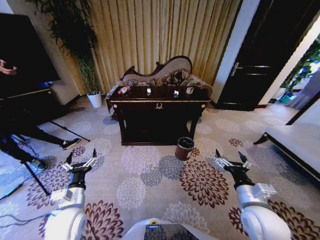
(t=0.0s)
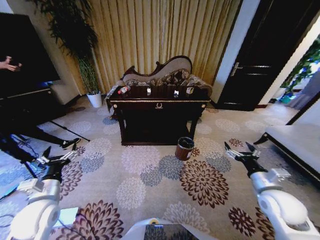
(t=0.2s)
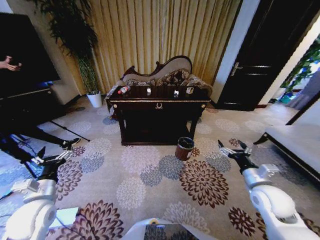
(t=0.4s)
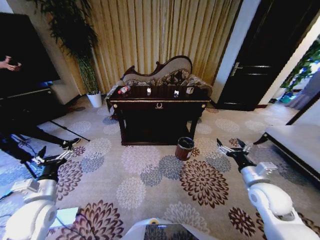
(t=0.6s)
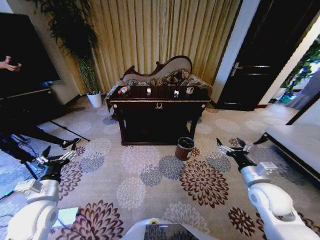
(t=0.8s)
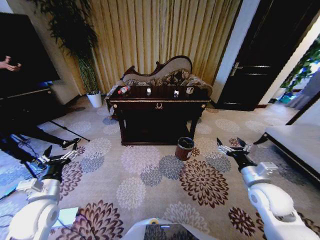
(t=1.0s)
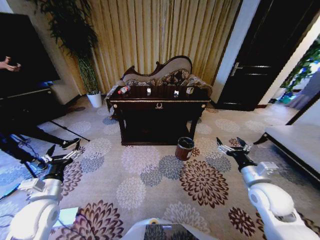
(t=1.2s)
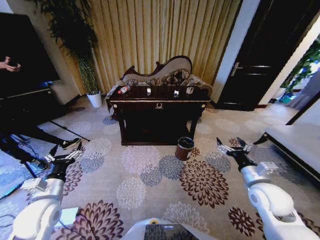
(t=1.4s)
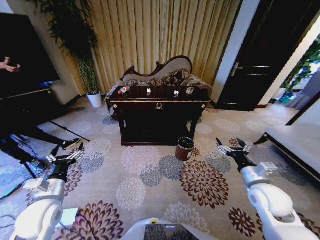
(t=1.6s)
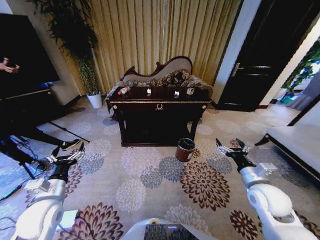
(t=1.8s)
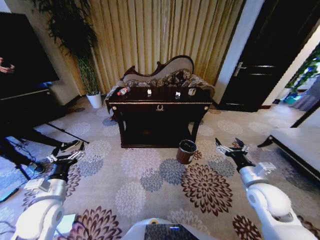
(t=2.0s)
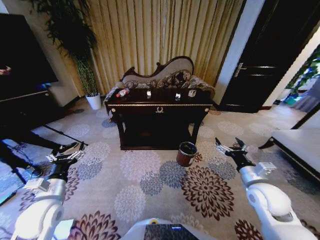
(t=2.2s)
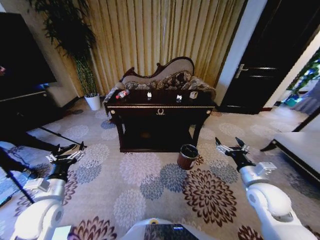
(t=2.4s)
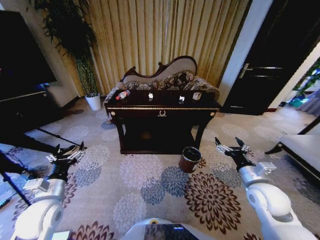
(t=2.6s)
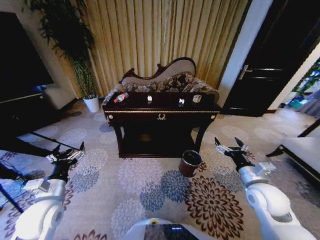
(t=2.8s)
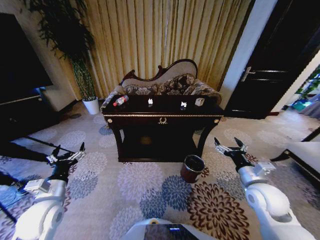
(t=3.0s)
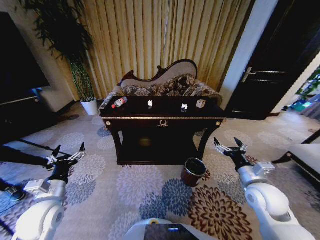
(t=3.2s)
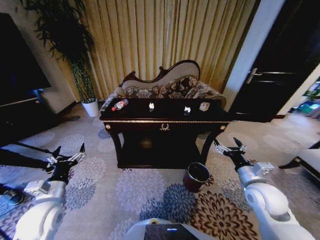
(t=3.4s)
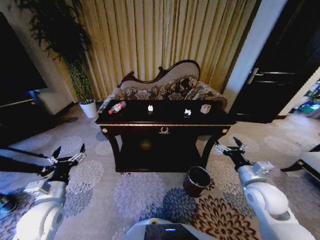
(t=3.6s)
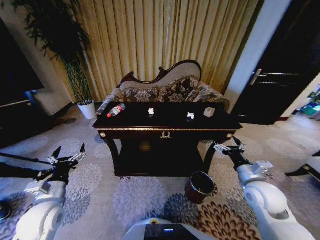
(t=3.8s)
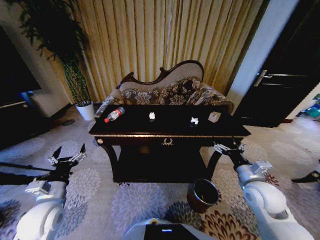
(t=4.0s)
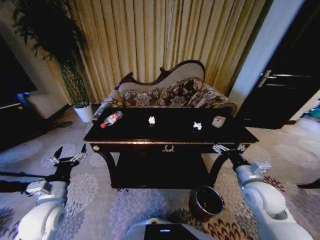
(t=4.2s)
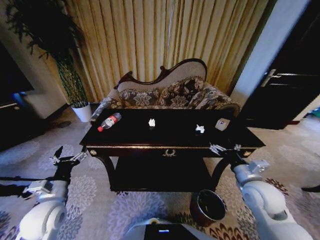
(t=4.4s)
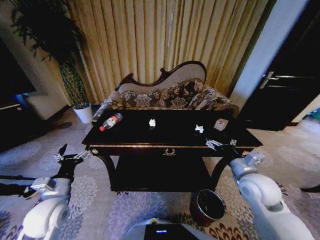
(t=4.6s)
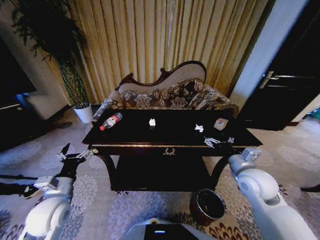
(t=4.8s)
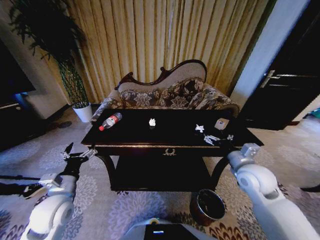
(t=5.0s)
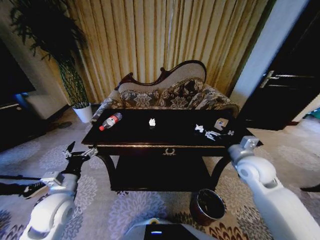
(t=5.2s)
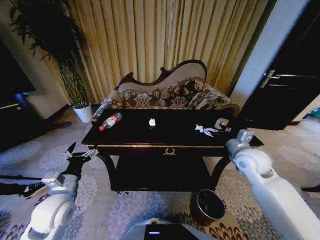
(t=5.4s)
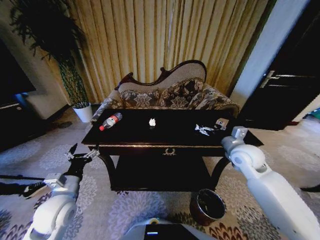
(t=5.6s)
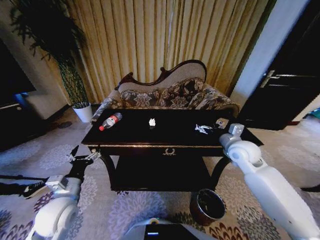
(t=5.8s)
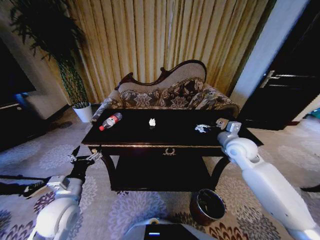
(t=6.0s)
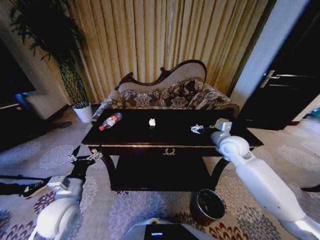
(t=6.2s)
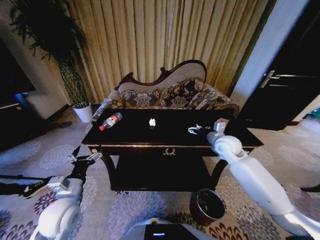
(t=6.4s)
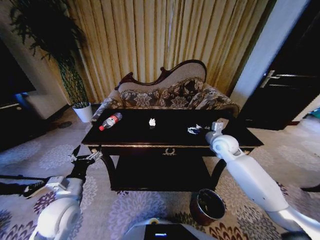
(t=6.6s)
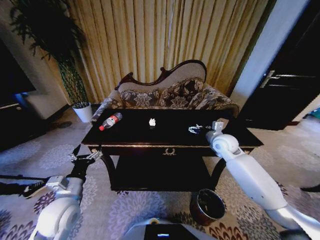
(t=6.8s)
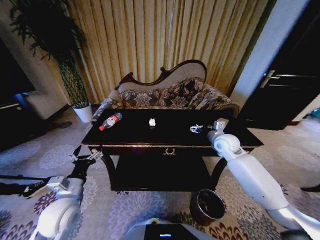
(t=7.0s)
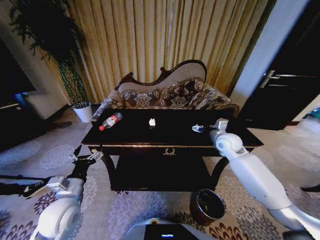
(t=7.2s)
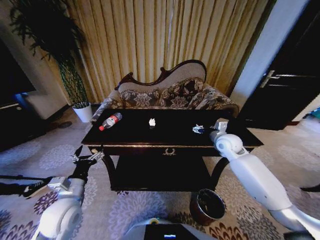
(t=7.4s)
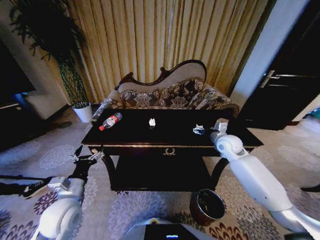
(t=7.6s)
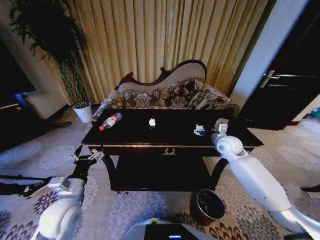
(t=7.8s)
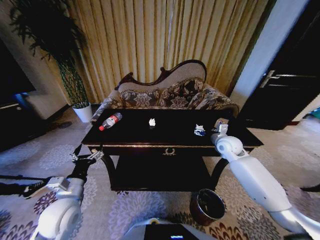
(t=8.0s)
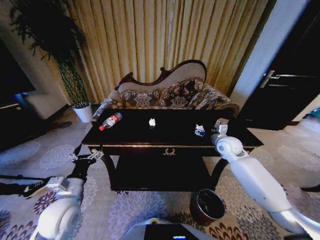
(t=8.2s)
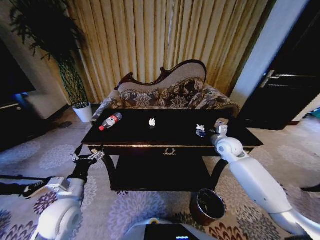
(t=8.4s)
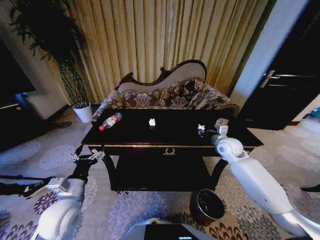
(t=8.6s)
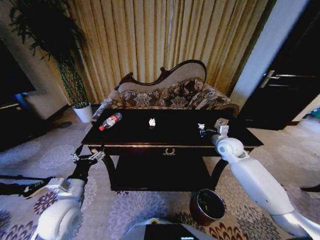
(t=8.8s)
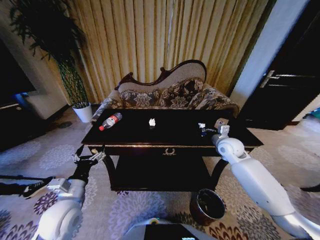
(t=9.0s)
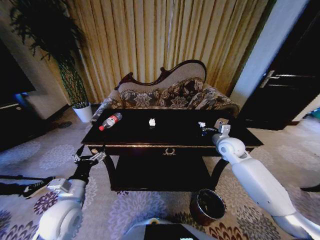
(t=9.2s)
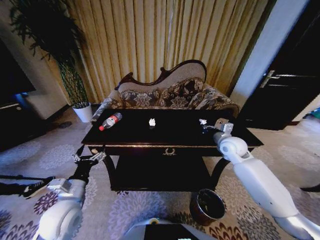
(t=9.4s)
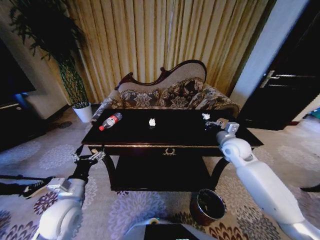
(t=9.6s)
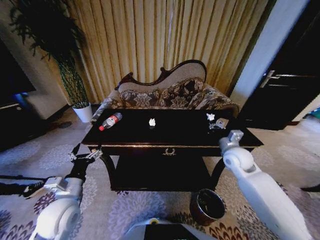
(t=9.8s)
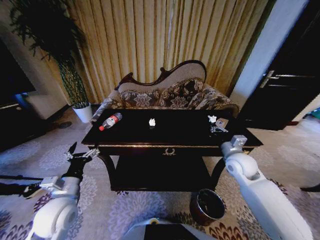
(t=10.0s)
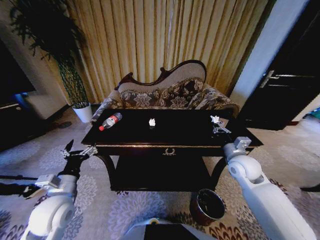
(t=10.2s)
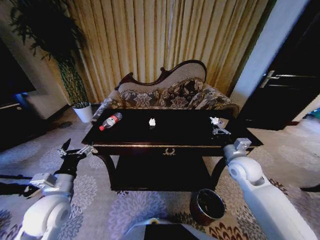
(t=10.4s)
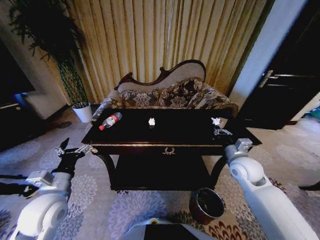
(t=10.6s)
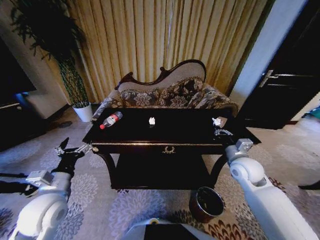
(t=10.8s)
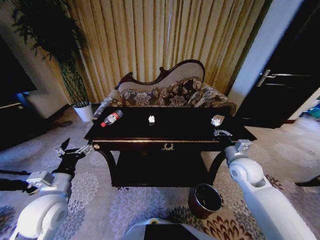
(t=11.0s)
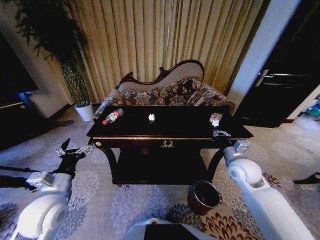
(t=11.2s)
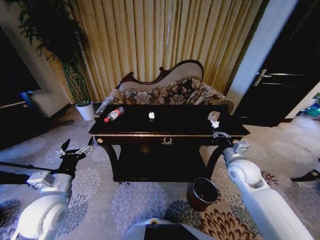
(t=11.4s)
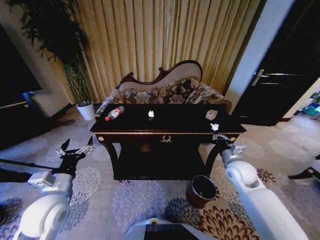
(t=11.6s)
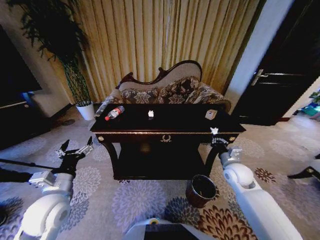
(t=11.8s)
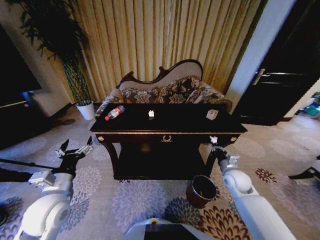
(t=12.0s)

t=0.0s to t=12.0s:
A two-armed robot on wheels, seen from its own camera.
Task of the whole recording: Move to the front of the table and place the trash on the table into the trash bin.
t=4.4s to t=6.0s: The right gripper goes approximately 15 cm forward.
t=6.0s to t=7.6s: The right gripper changes place by some 5 cm.
t=7.6s to t=9.0s: The right gripper closes up.
t=9.0s to t=10.4s: The right gripper moves backward, roughly 10 cm.
t=10.4s to t=12.0s: The right gripper is displaced downward by roughly 10 cm.

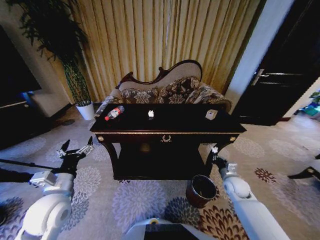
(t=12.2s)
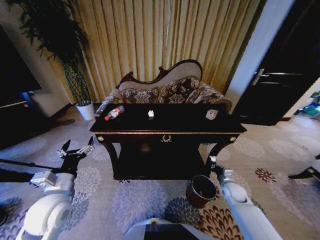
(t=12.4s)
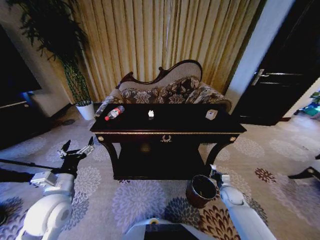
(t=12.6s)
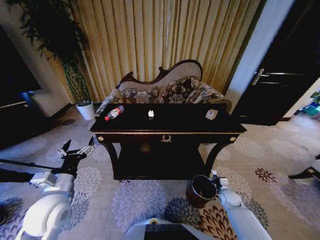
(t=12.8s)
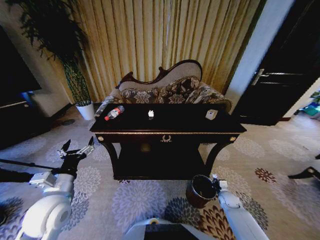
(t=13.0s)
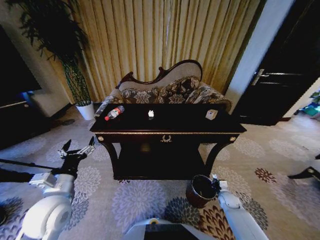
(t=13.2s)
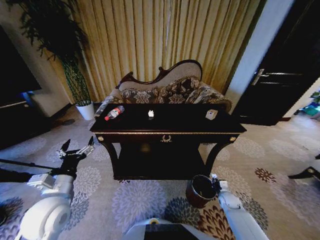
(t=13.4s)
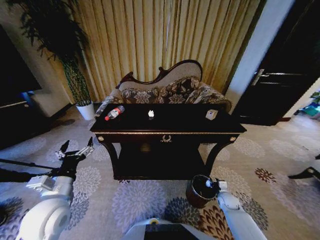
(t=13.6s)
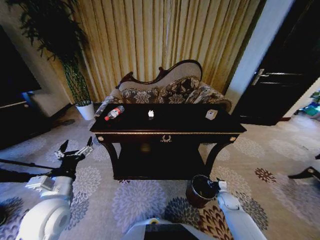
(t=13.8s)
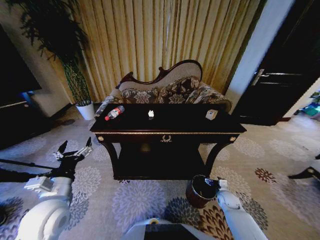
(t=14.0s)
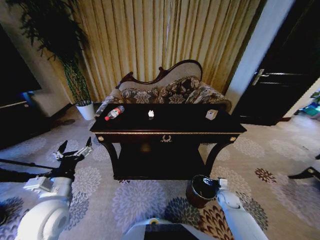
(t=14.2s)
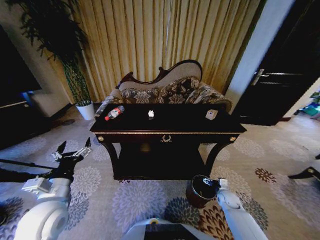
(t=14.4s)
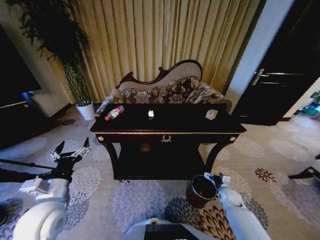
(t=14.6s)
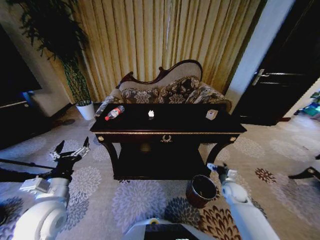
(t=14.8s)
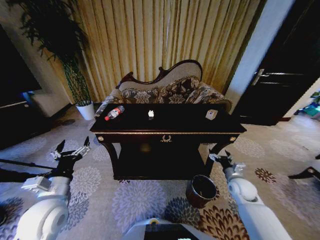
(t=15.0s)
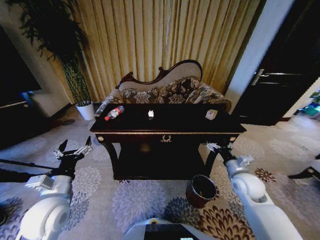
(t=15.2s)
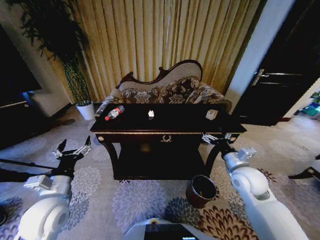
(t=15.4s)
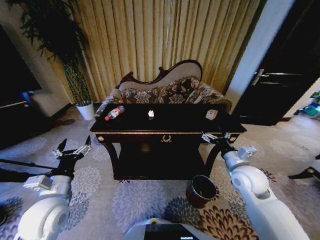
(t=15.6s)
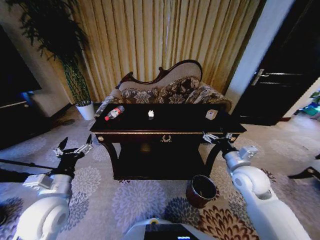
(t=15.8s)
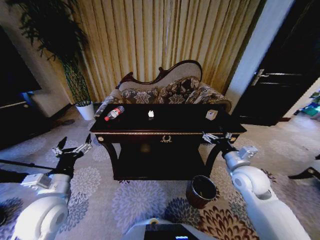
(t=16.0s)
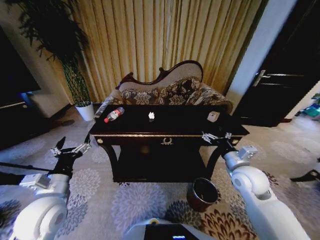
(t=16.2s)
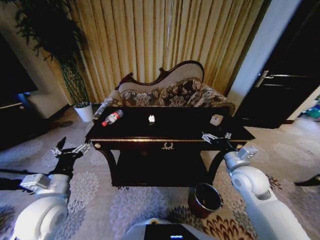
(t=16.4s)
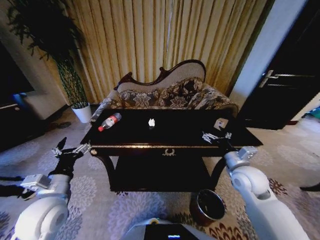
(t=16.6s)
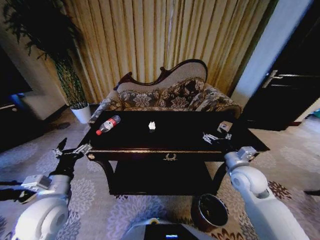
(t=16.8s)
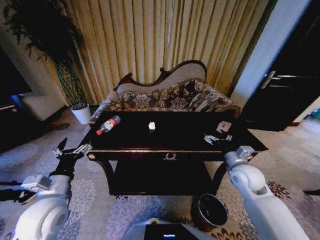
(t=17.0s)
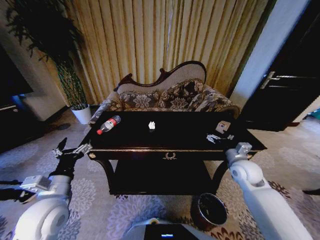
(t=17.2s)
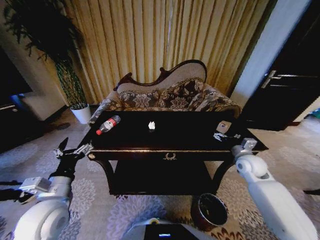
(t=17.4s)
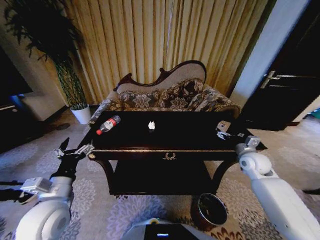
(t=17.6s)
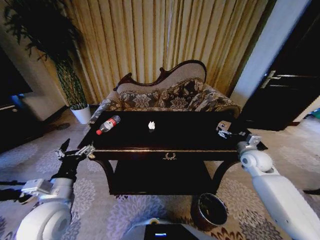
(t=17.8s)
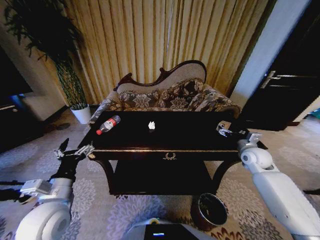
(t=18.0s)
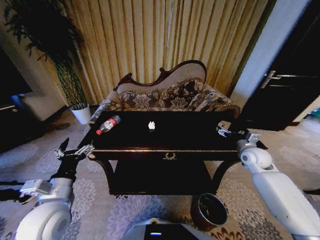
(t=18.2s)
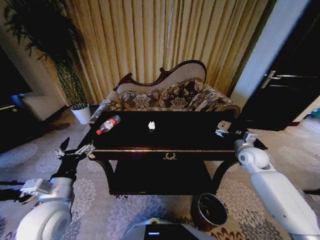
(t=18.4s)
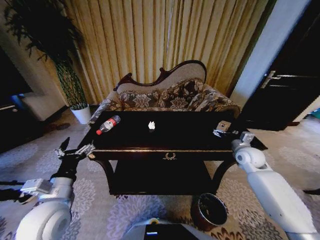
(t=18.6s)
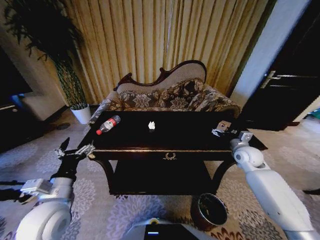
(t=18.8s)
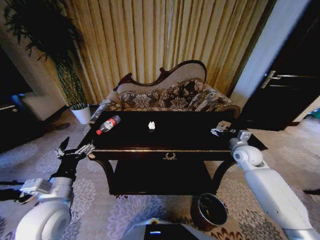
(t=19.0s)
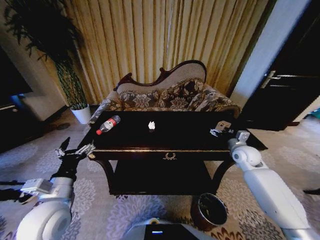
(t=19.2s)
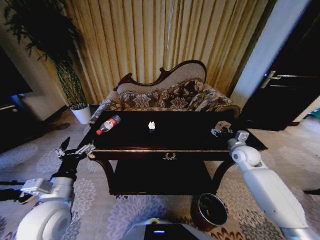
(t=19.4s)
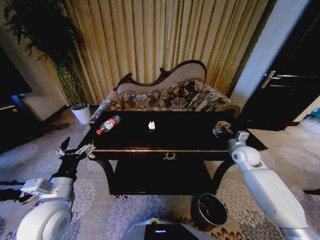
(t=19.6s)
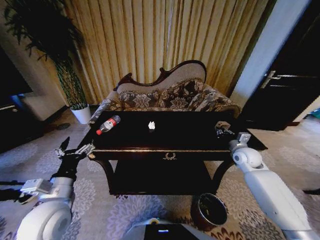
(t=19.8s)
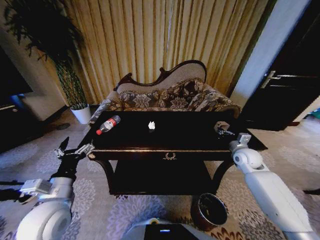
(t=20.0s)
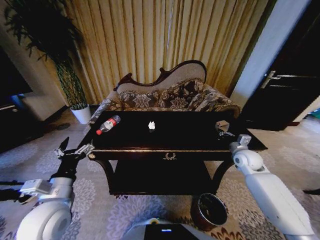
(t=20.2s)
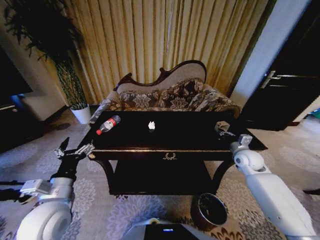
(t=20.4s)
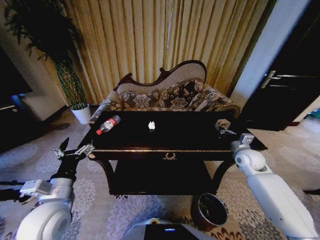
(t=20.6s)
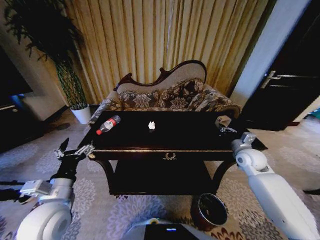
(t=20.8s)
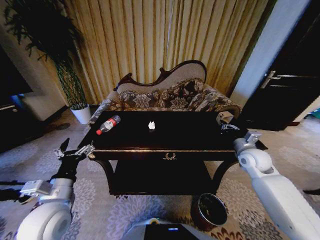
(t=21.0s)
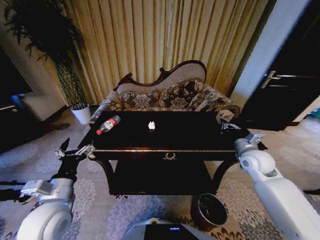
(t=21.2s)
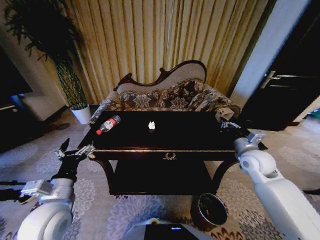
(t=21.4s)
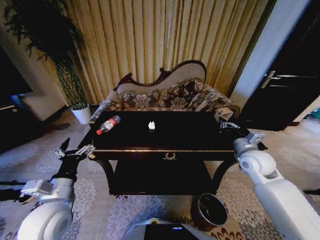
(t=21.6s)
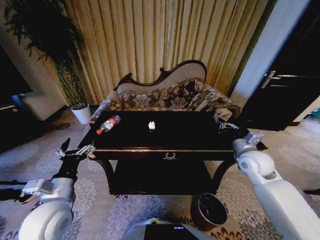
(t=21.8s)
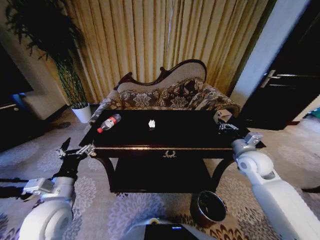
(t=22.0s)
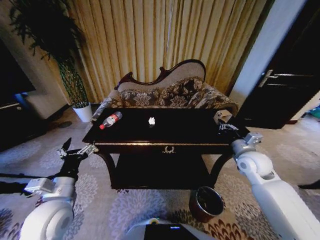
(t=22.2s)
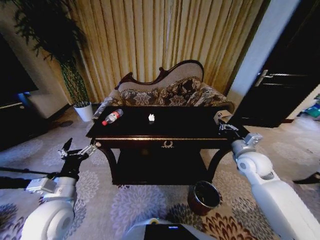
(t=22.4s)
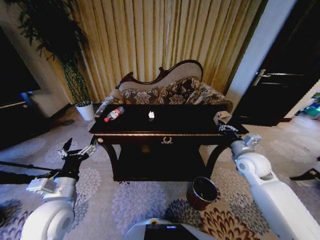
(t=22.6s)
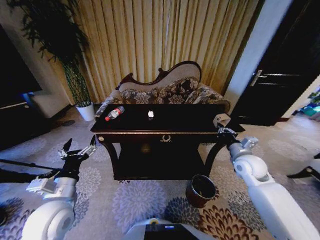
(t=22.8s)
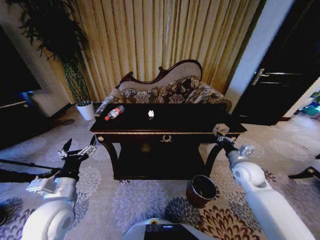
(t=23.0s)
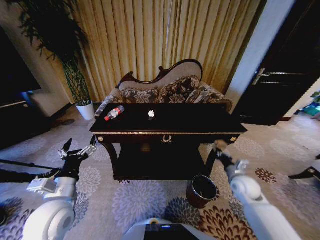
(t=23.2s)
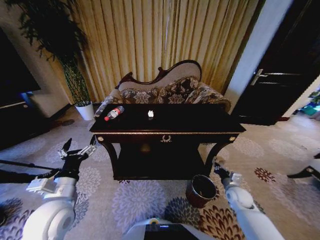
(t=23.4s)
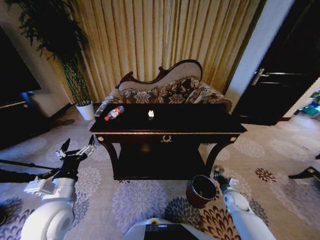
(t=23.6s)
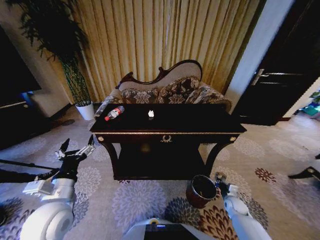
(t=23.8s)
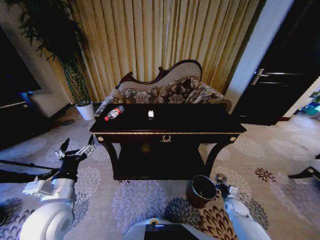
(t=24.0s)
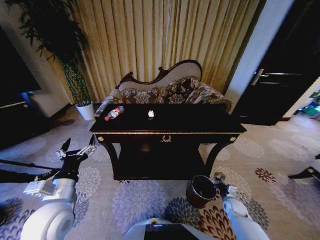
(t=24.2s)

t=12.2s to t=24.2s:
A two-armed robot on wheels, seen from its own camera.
Task of the whole recording: Move to the front of the table and place the trash on the table into the trash bin.
t=12.2s to t=13.8s: The right gripper shifts approximately 15 cm downward, and opens.
t=13.8s to t=15.2s: The right gripper is displaced upward by roughly 25 cm, and opens up.
t=15.2s to t=16.6s: The right gripper moves upward, approximately 5 cm.
t=16.6s to t=18.2s: The right gripper is displaced to the right and forward by approximately 15 cm.
t=18.2s to t=19.8s: The right gripper closes.
t=19.8s to t=21.2s: The right gripper ends up about 10 cm from where it was.
t=22.6s to t=24.2s: The right gripper travels downward by about 30 cm.
